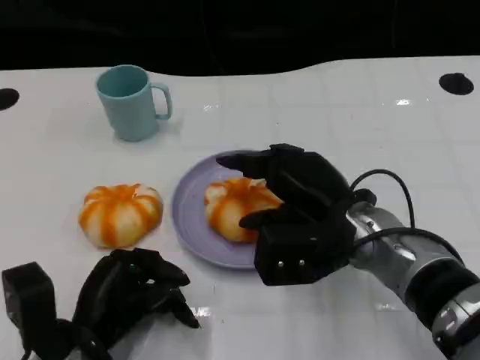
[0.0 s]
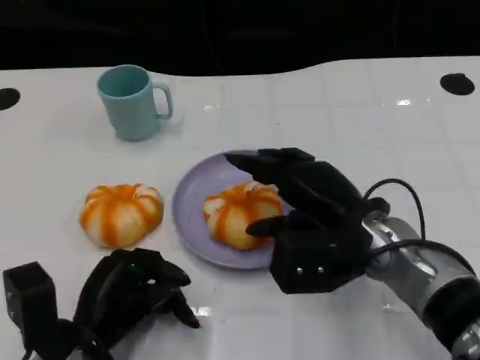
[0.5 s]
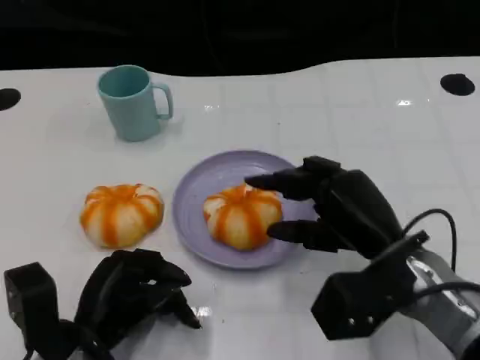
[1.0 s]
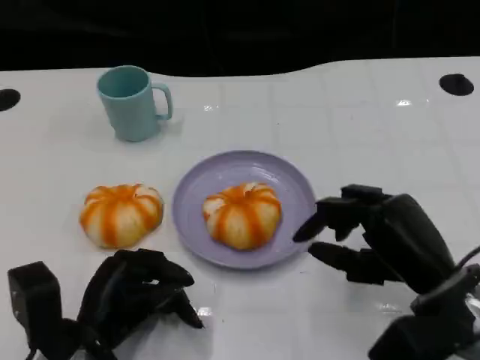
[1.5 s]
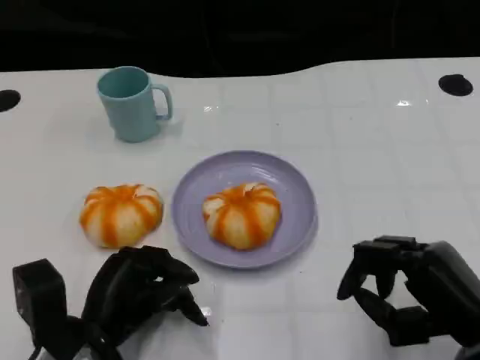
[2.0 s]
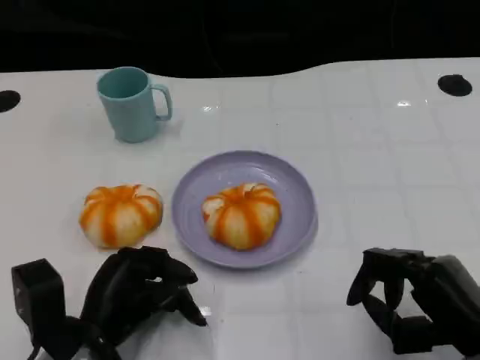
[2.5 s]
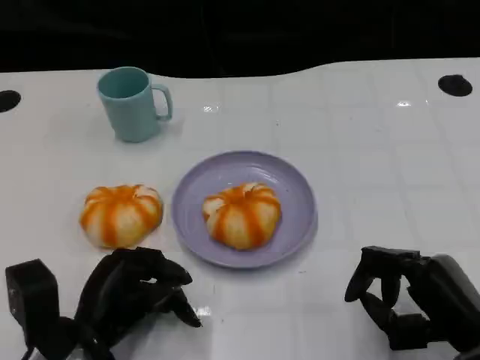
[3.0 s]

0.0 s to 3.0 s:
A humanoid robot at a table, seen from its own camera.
Task of the whole recording: Grasp the bread from the table and place it into the plate.
0.0 to 1.5 s: The right hand travels to the right and backward by approximately 10 cm.
1.5 to 3.0 s: The right hand shifts by roughly 5 cm.

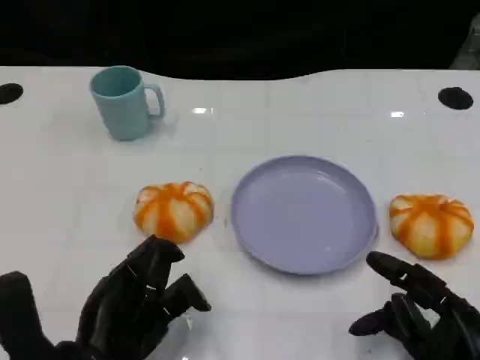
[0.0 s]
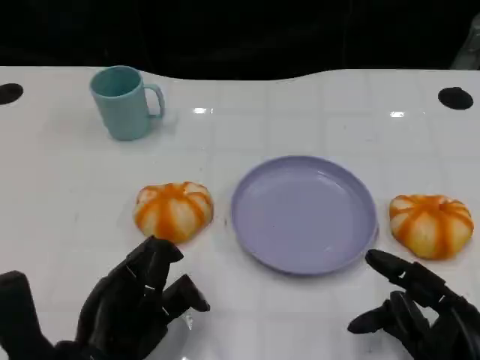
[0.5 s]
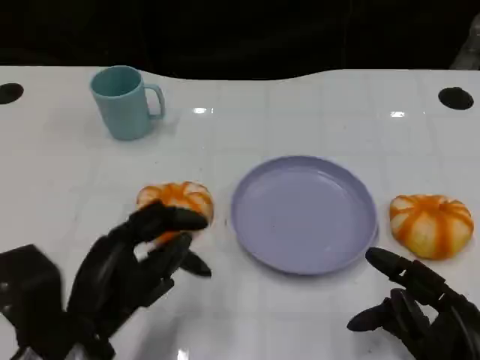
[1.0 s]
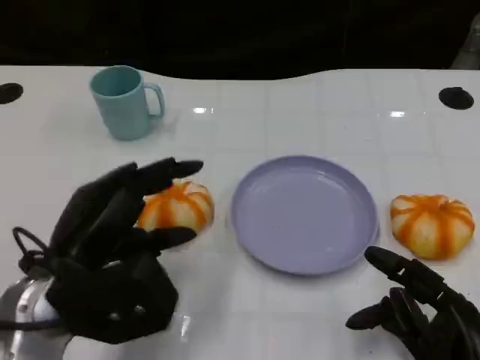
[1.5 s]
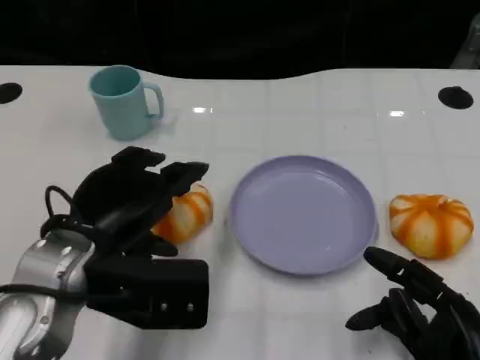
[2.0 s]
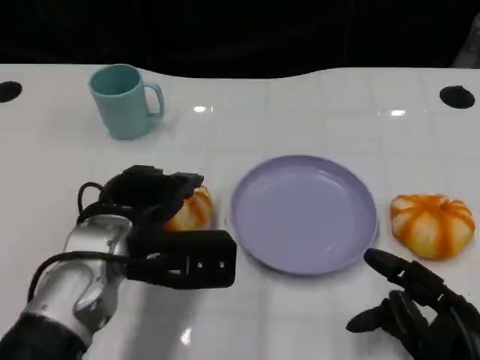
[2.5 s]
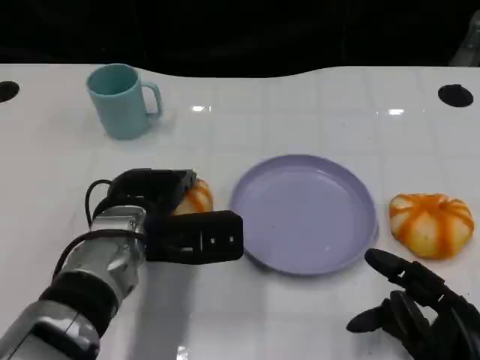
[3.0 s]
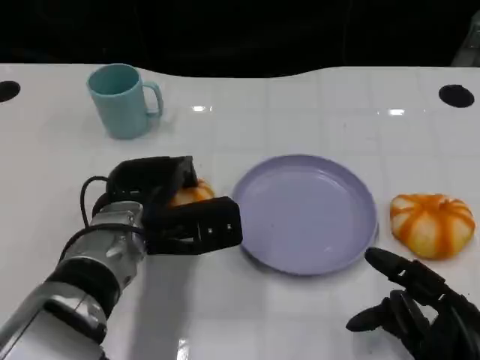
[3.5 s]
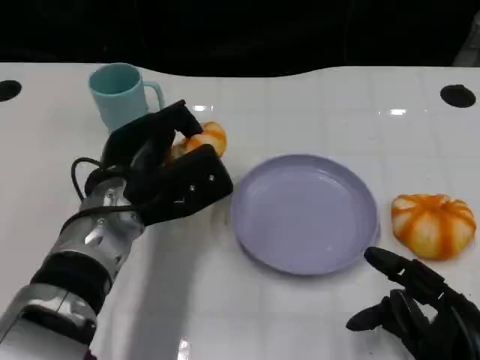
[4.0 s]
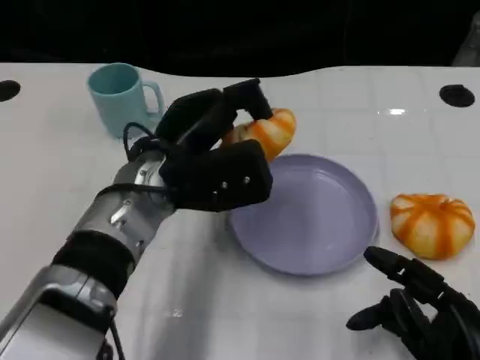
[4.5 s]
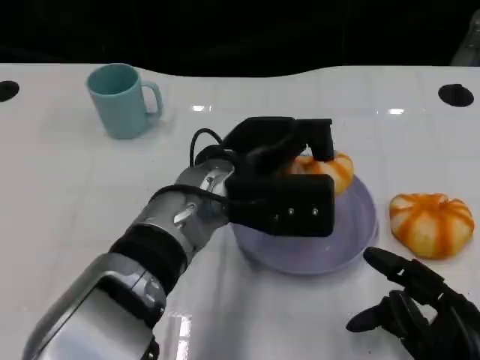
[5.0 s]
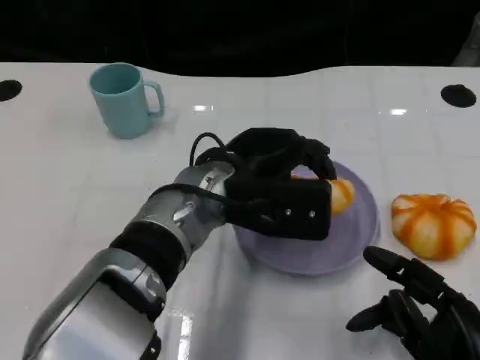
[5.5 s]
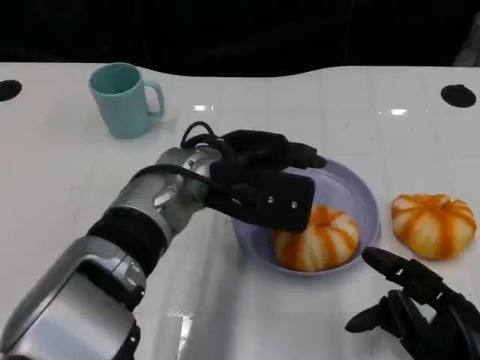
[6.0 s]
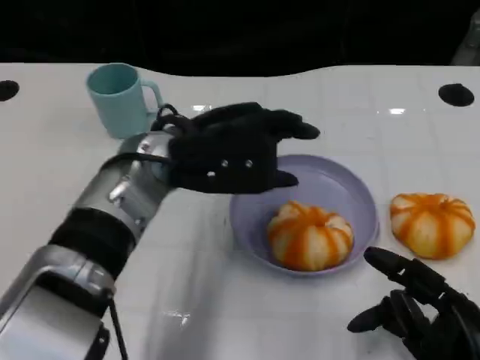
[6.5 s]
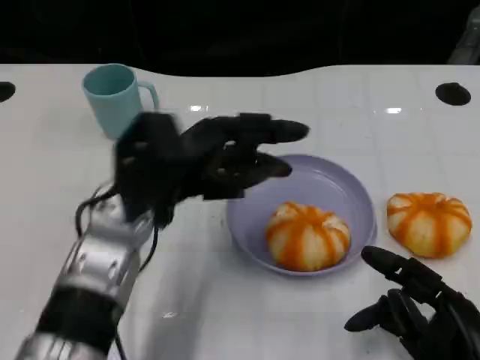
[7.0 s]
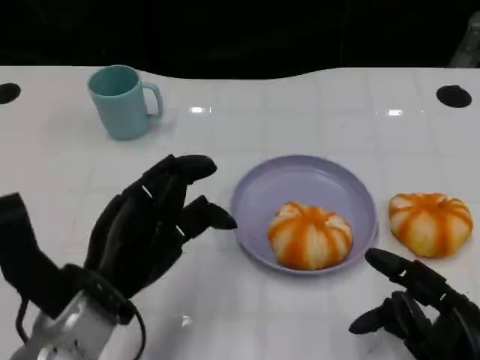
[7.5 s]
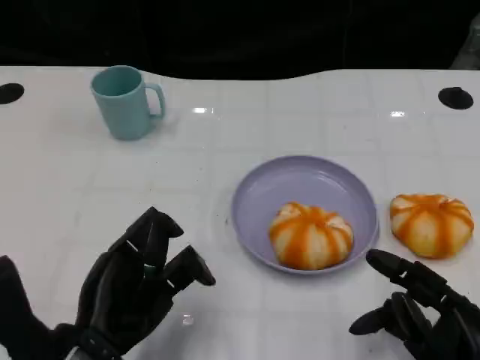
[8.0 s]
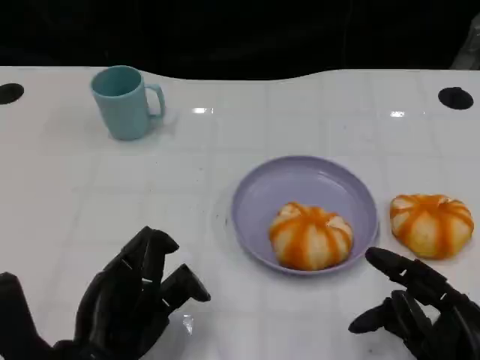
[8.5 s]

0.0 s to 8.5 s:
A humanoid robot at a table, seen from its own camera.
Task of the whole recording: Grasp the bread from the table and place it into the plate.
0.0 to 2.0 s: The left hand shifts approximately 10 cm upward and forward.
2.0 to 4.0 s: The left hand shifts roughly 10 cm forward.
4.0 to 6.5 s: The left hand goes approximately 5 cm upward.
6.5 to 8.5 s: The left hand goes some 20 cm backward, downward and to the left.

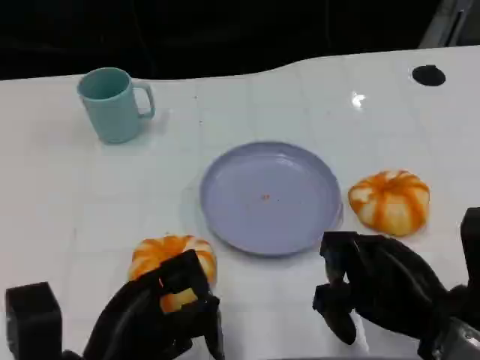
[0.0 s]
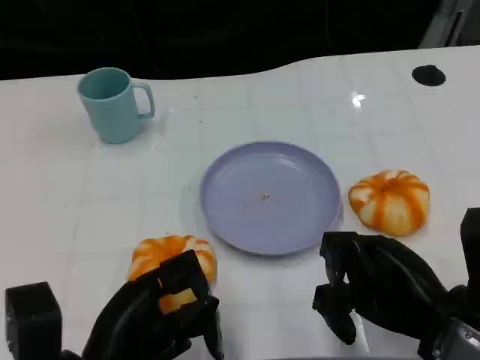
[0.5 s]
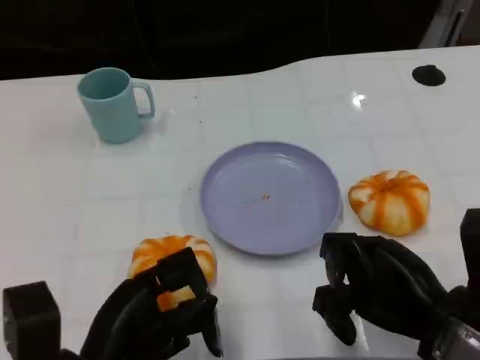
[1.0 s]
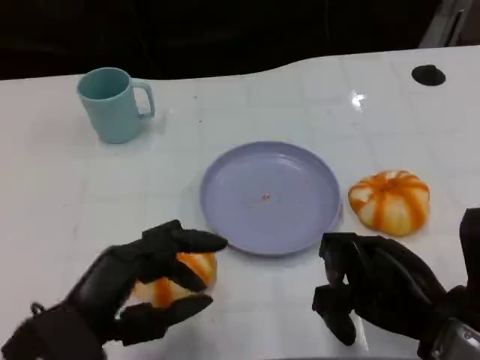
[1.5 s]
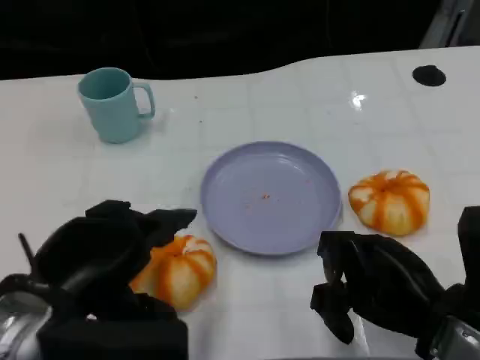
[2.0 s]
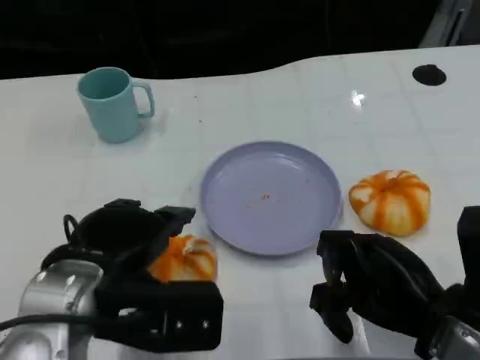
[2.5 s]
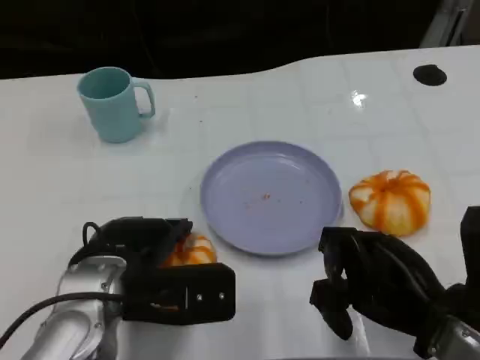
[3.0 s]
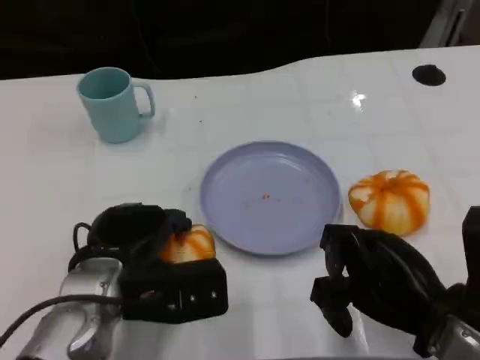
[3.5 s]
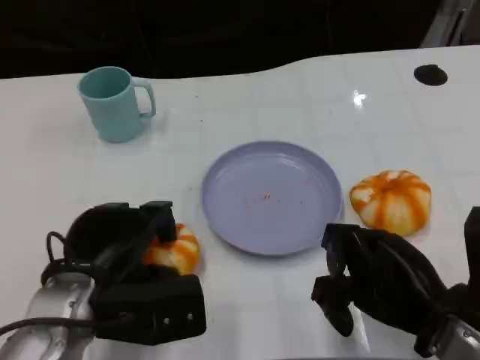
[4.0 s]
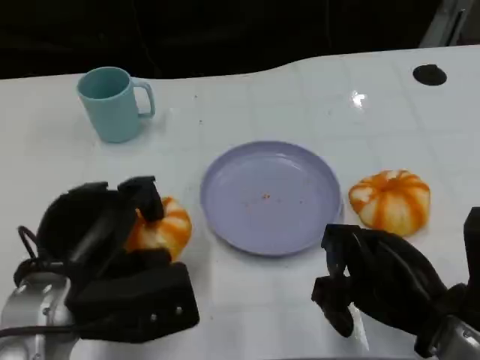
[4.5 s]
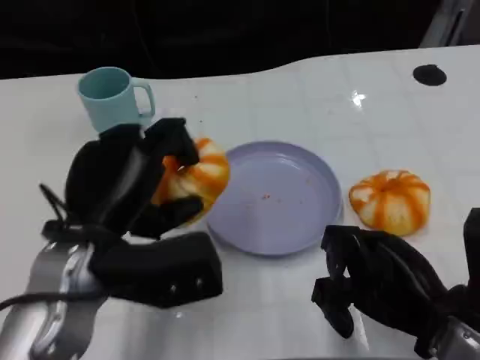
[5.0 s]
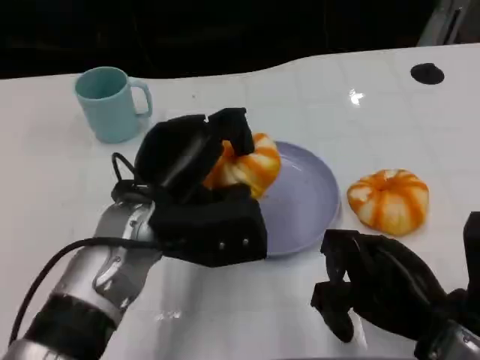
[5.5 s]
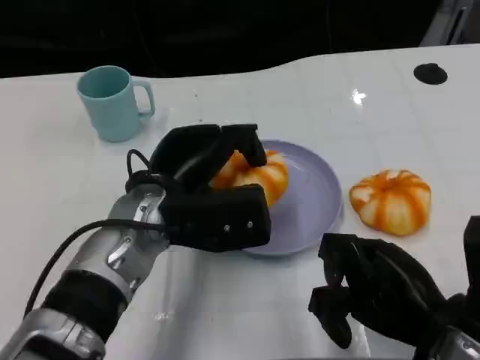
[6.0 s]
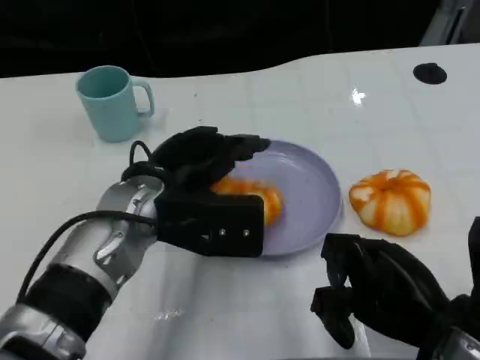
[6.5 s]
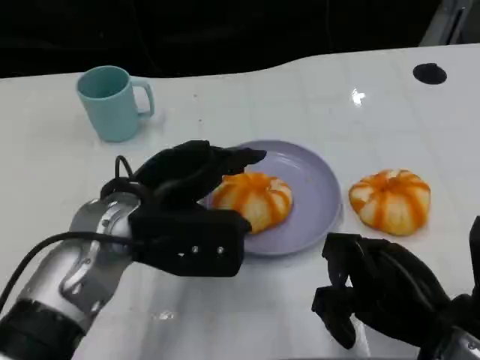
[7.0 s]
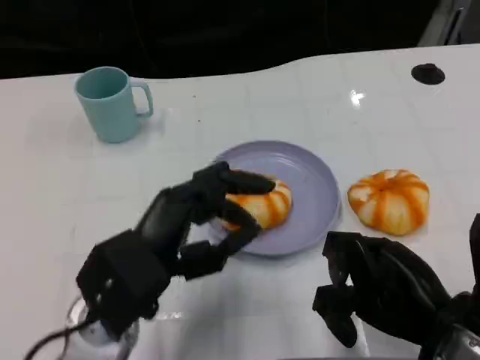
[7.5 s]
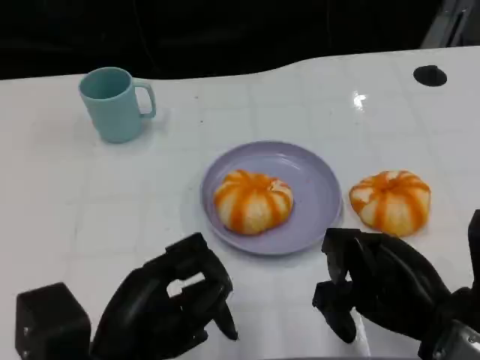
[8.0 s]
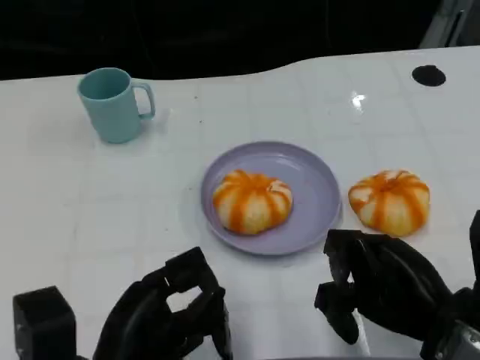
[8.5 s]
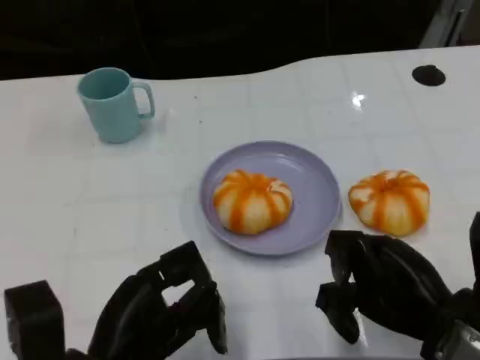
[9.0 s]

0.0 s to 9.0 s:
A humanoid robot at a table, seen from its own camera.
Task of the whole recording: Grasp the bread from the table and place it into the plate.
0.0 to 2.0 s: The left hand goes some 10 cm upward.
4.5 to 7.0 s: The left hand heads forward and to the right, covering about 10 cm.
7.0 to 9.0 s: The left hand travels backward and downward by approximately 15 cm.

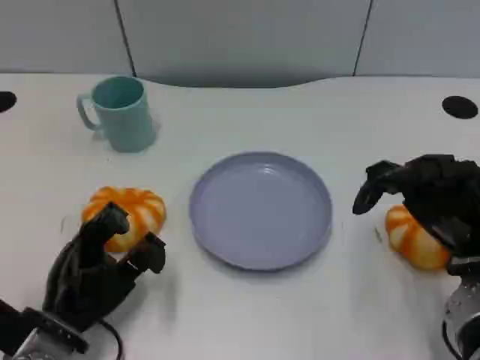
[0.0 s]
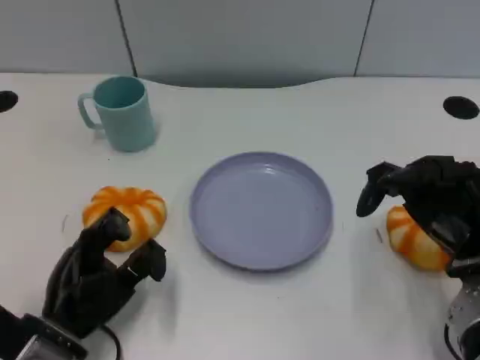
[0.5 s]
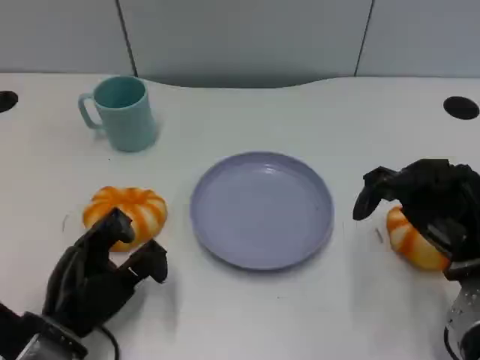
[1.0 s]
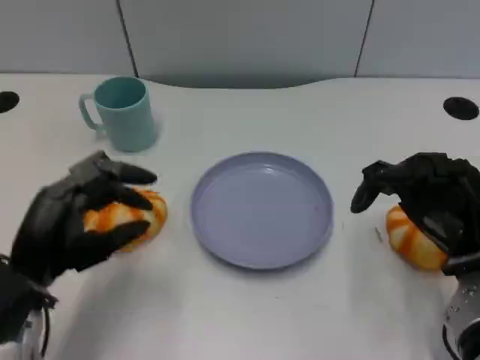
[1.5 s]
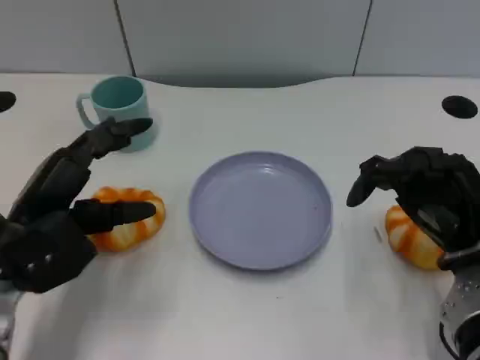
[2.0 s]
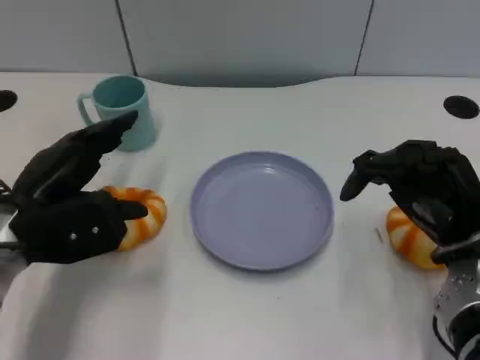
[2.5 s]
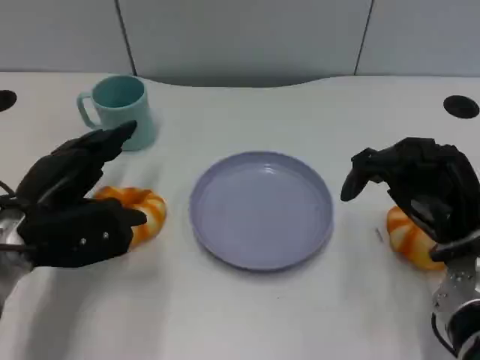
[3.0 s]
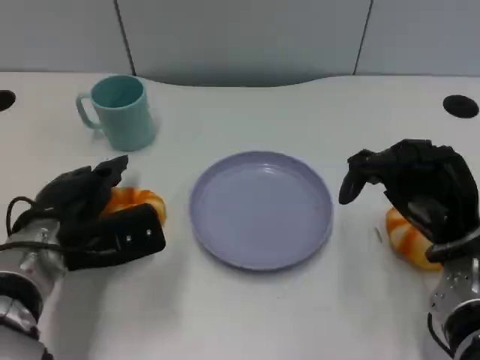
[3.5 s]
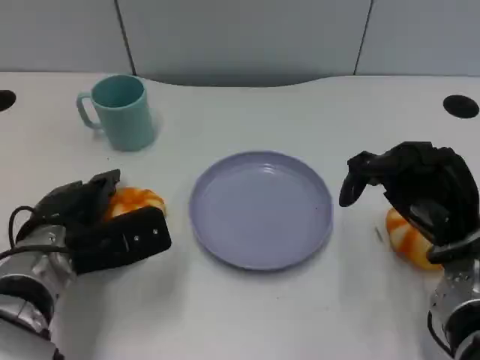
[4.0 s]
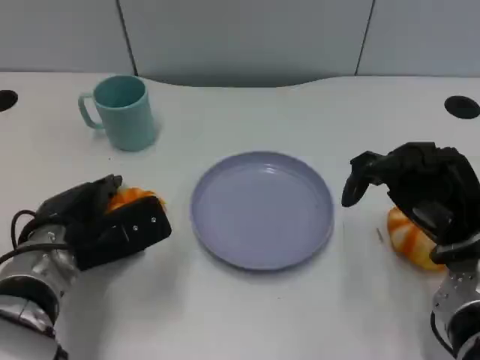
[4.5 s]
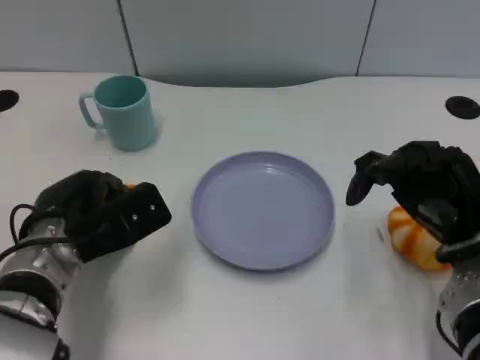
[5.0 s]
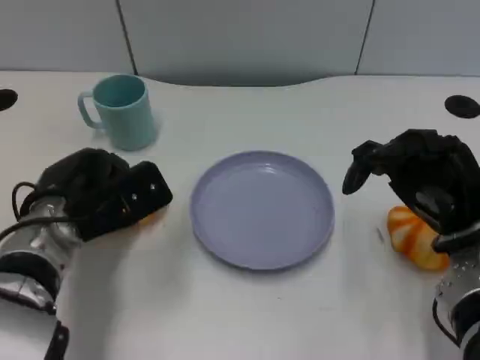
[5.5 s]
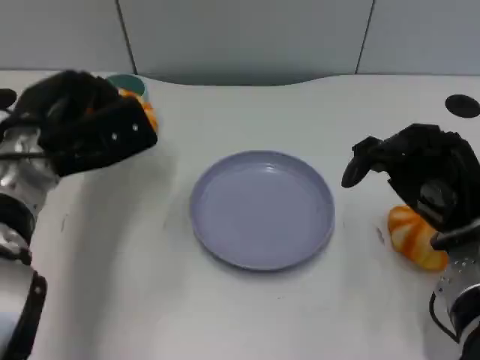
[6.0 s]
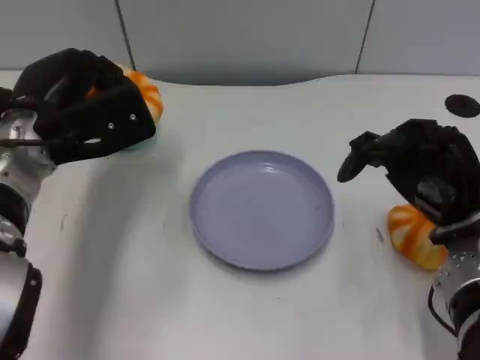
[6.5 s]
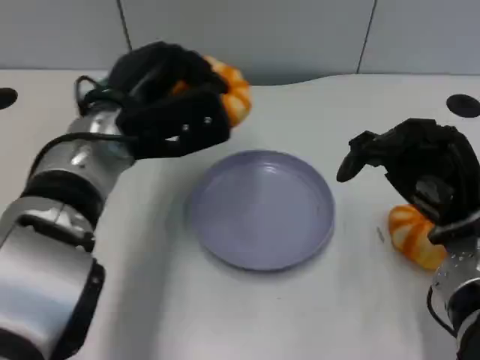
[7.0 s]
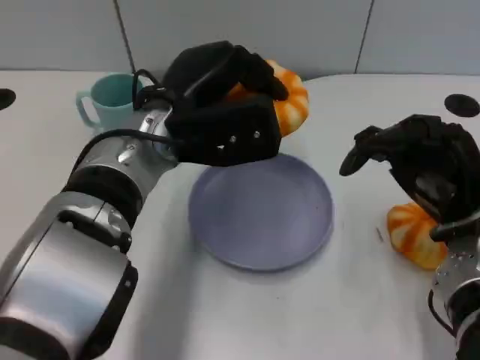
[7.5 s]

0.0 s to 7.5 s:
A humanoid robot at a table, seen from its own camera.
Task of the whole recording: Grasp the bread from the table and place it into the plate.
0.0 to 2.0 s: The left hand goes about 10 cm upward.
2.0 to 4.0 s: The left hand changes place by about 5 cm.
4.0 to 5.5 s: There are only small adjustments of the hands.
5.5 to 7.5 s: The left hand is displaced to the right and upward by some 15 cm.
